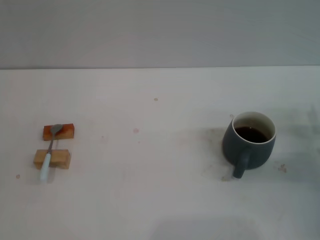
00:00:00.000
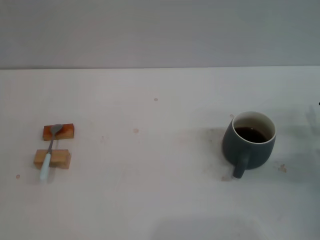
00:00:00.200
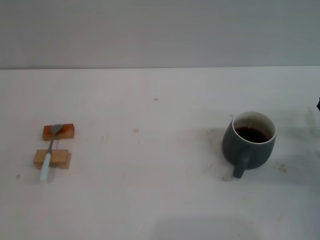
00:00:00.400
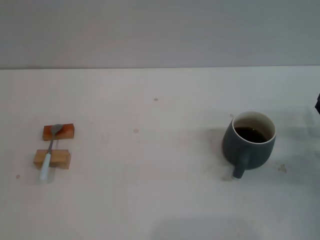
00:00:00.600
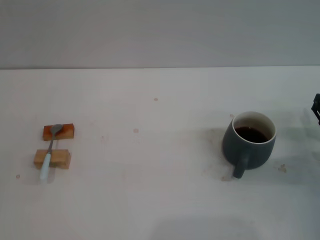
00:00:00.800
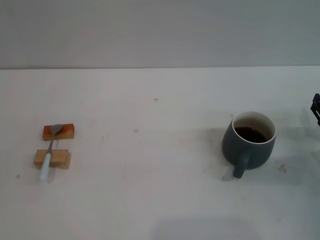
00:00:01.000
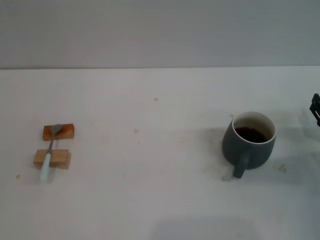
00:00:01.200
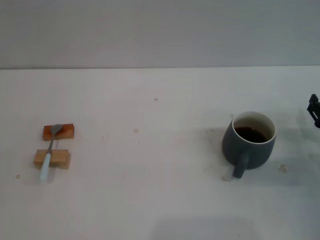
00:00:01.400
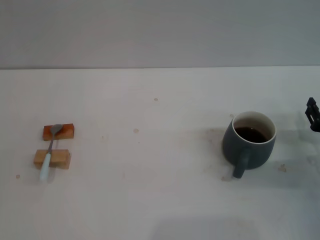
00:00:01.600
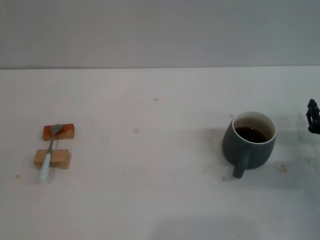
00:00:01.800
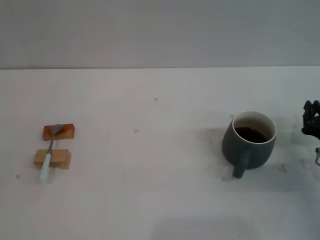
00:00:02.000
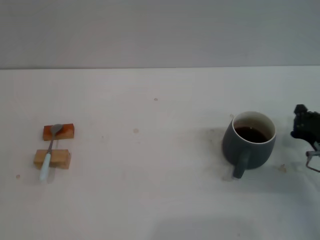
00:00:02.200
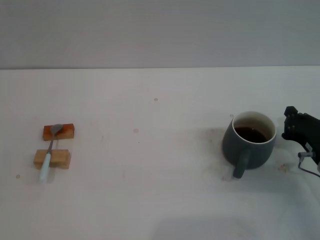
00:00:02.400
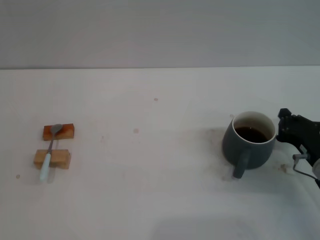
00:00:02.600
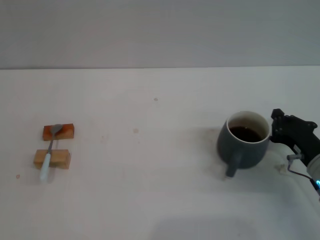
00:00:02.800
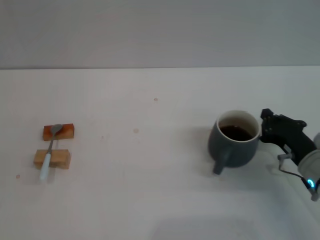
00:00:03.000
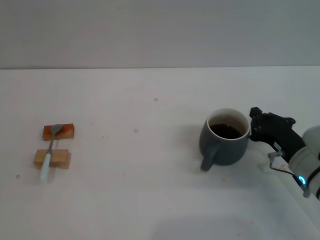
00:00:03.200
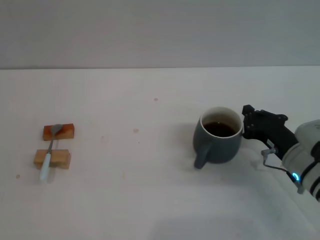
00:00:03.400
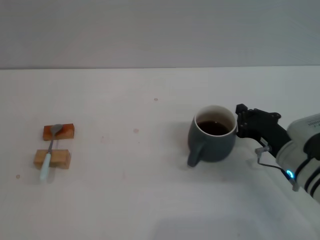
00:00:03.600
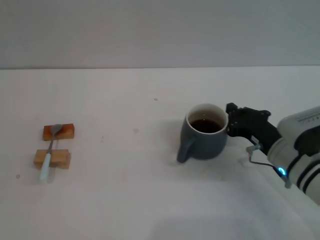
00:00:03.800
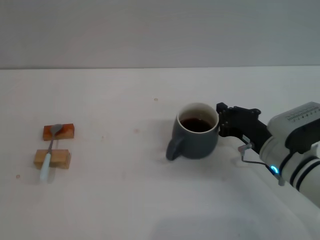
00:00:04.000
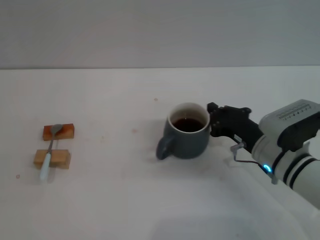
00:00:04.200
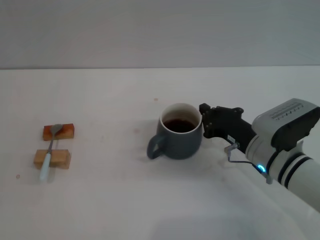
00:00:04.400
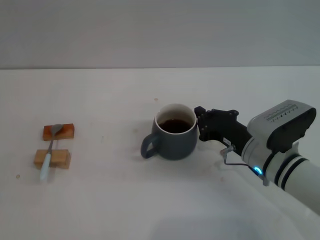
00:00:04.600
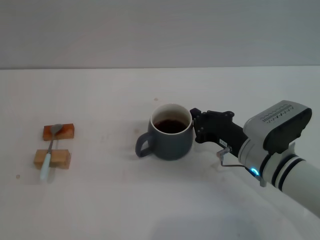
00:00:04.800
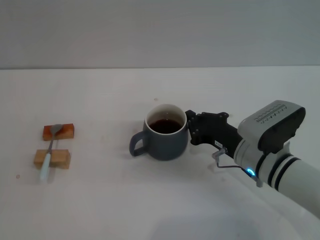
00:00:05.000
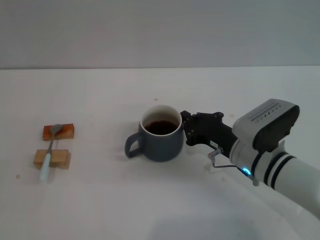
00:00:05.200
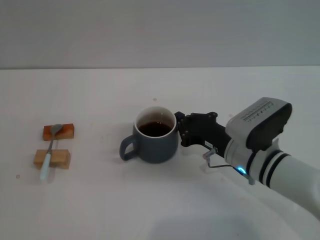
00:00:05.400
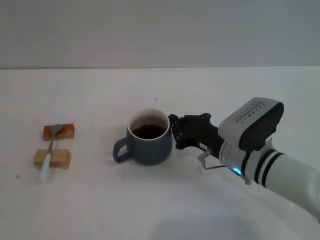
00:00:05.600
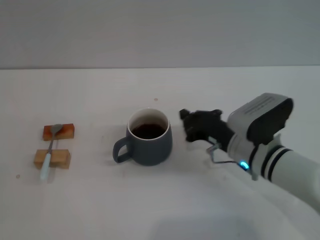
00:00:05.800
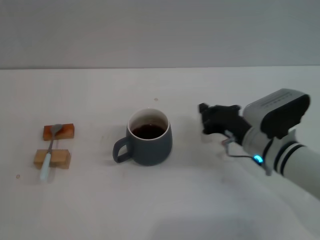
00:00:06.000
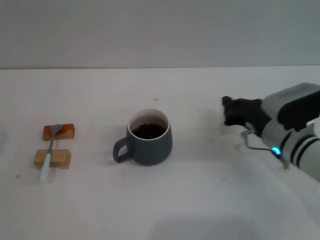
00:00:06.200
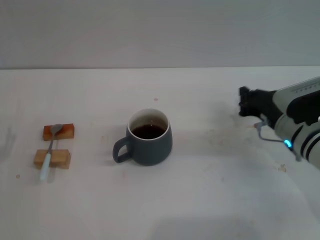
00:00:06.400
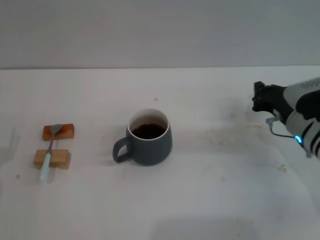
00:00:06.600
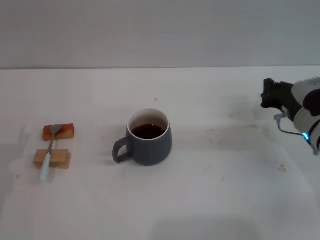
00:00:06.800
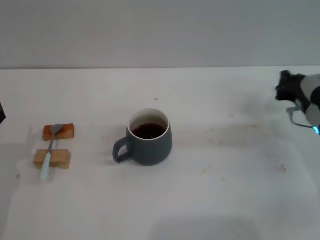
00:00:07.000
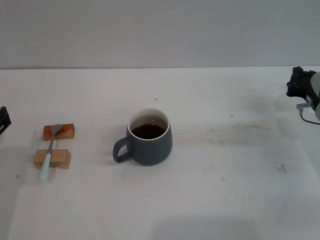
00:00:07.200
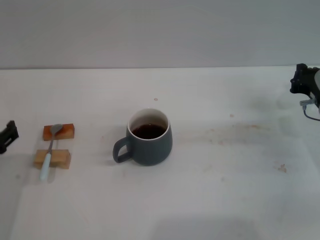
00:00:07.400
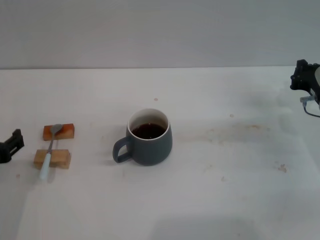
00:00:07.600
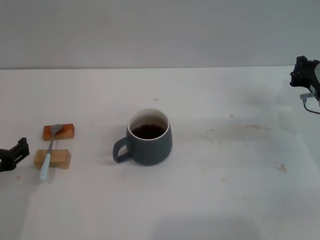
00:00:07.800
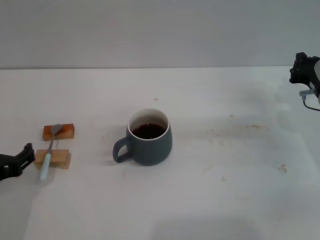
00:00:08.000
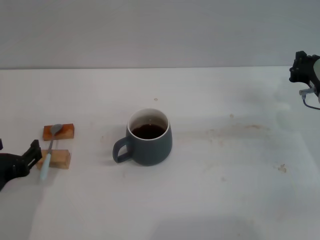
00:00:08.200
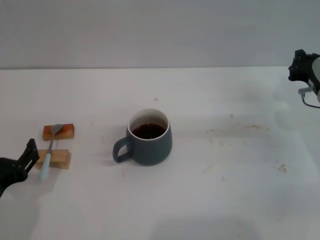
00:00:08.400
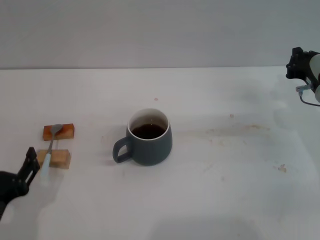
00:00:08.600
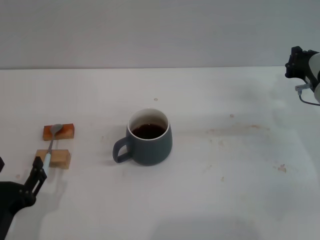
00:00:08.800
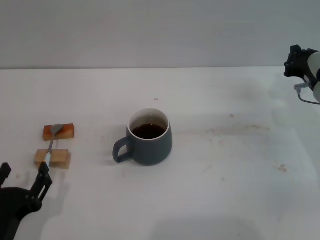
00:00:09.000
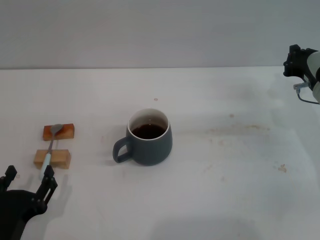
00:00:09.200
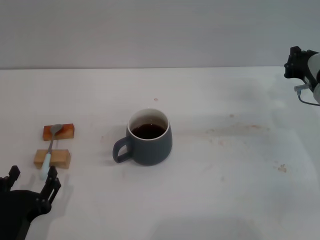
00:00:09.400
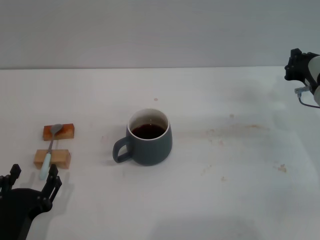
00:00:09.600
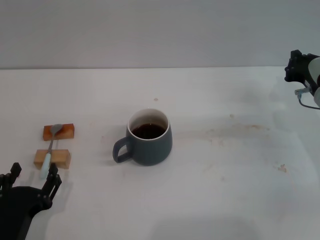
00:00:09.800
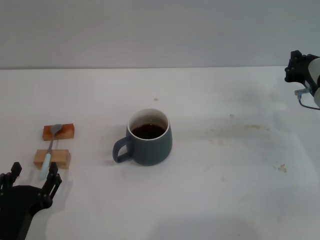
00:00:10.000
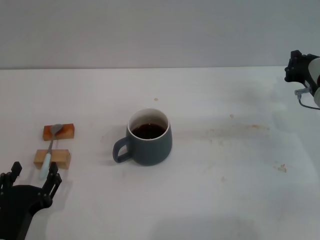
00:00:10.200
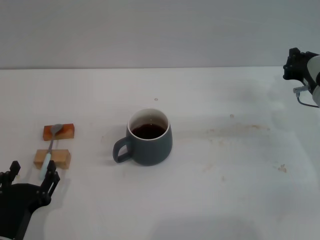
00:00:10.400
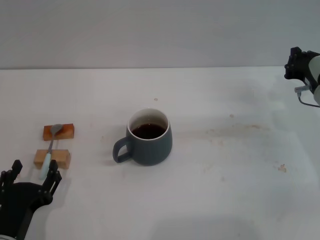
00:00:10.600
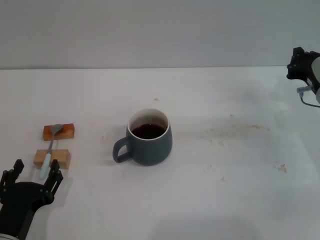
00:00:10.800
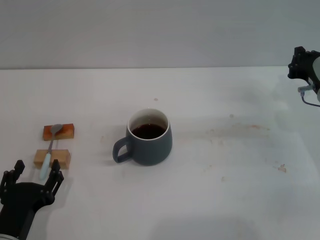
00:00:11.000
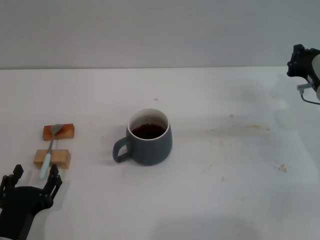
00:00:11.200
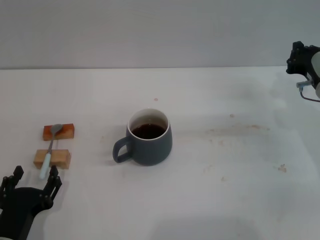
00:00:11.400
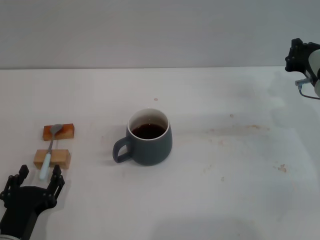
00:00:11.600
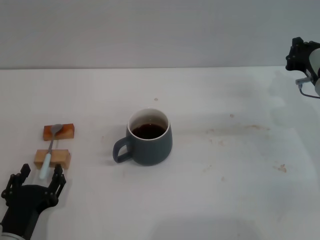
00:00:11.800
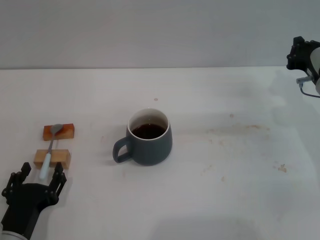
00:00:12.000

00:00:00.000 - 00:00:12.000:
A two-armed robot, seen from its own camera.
Task of the whole recording: Move the grey cup to the center, lift the blue spoon, stir it three times in the cup, and put the spoon into the cup.
Step, 00:00:00.000 - 00:00:06.200: Move the cup with coffee to the center of view with the right gripper.
00:00:01.600 - 00:00:03.000: The right gripper moves to the left, about 5 cm, and closes its fingers.
00:00:03.000 - 00:00:04.400: The right gripper travels to the left by some 10 cm.
00:00:04.400 - 00:00:06.000: The left gripper moves approximately 5 cm.
00:00:06.000 - 00:00:07.600: The right gripper moves to the right, roughly 10 cm. Meanwhile the left gripper shifts roughly 15 cm upward and to the right.
00:00:07.600 - 00:00:09.000: The left gripper goes about 10 cm downward and backward.
00:00:09.000 - 00:00:12.000: There are only small adjustments of the grippers.

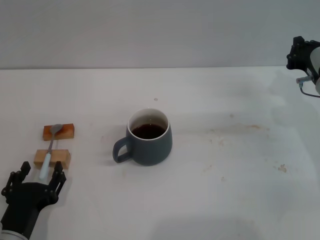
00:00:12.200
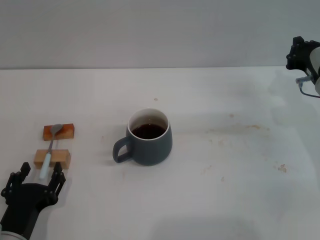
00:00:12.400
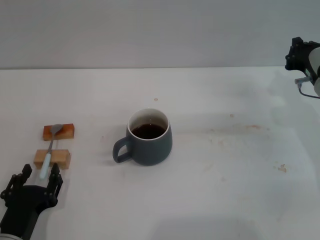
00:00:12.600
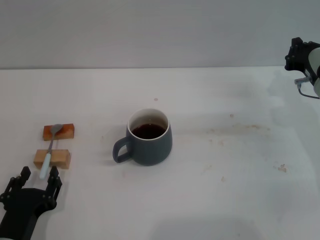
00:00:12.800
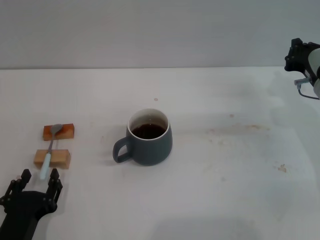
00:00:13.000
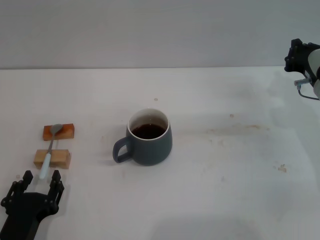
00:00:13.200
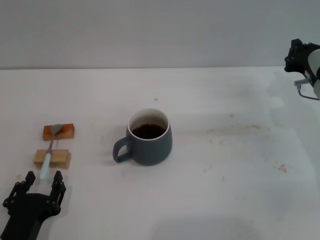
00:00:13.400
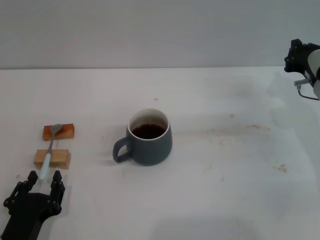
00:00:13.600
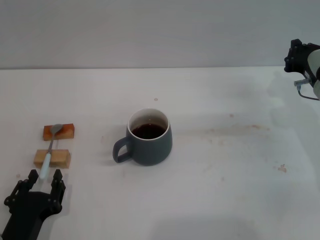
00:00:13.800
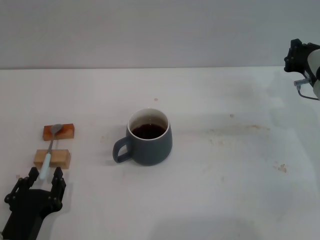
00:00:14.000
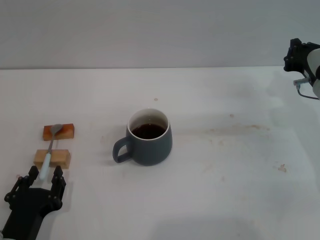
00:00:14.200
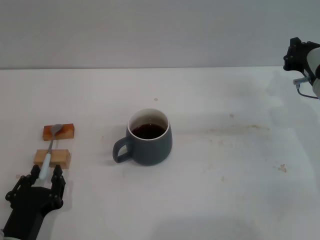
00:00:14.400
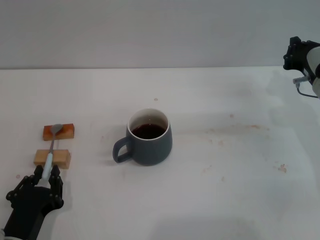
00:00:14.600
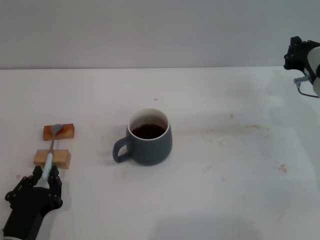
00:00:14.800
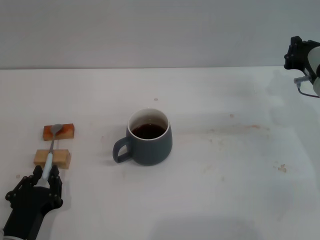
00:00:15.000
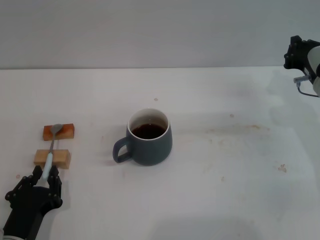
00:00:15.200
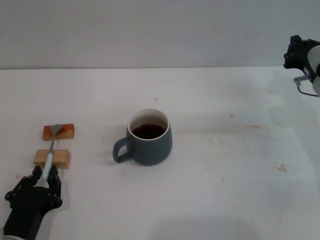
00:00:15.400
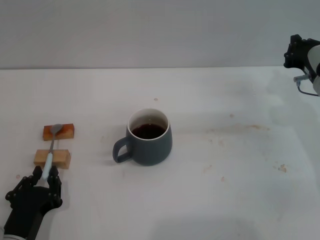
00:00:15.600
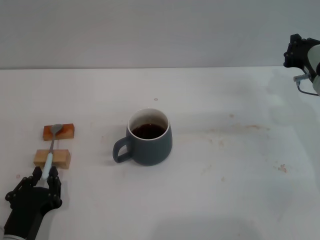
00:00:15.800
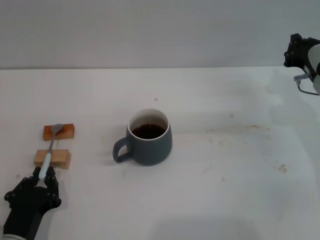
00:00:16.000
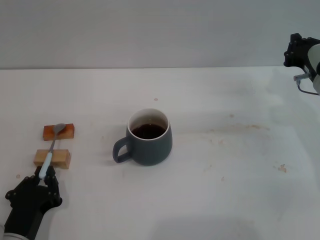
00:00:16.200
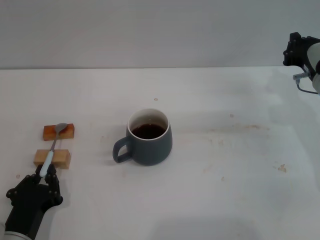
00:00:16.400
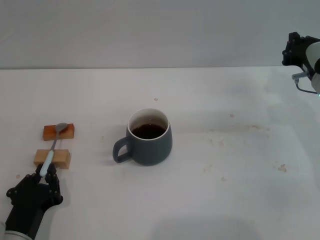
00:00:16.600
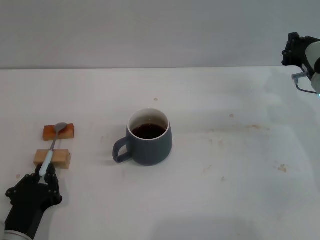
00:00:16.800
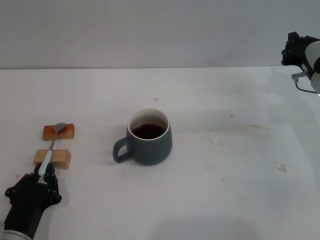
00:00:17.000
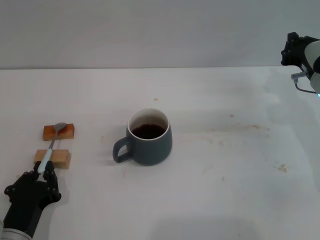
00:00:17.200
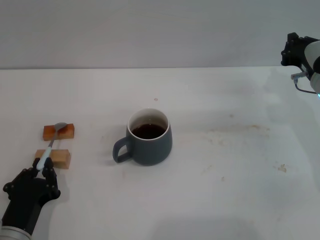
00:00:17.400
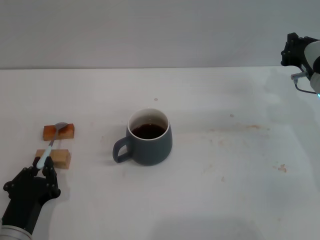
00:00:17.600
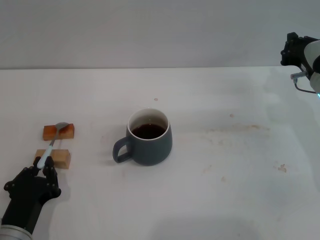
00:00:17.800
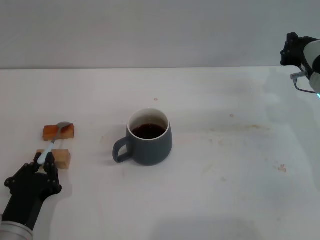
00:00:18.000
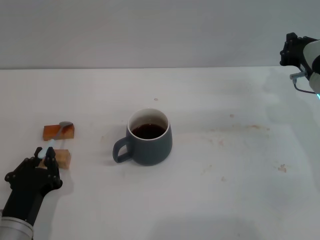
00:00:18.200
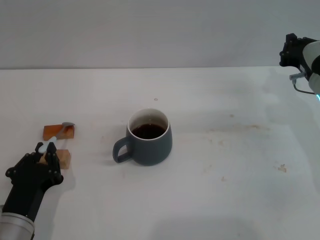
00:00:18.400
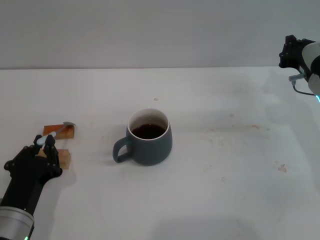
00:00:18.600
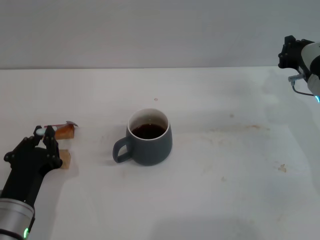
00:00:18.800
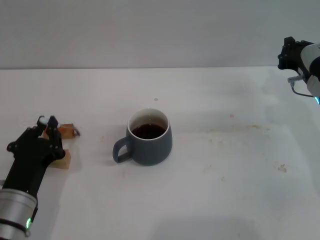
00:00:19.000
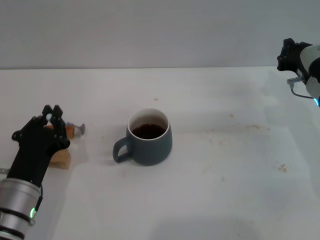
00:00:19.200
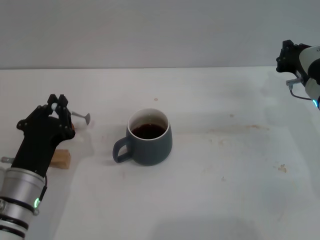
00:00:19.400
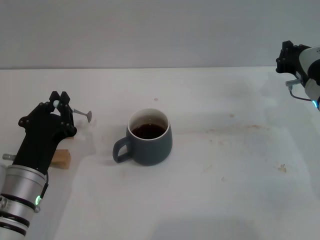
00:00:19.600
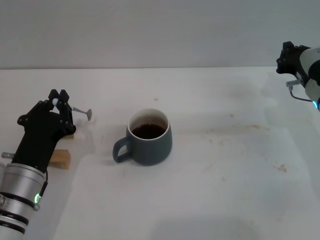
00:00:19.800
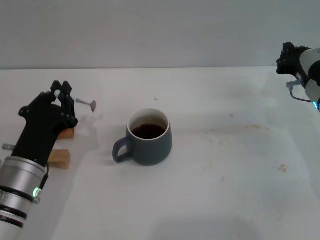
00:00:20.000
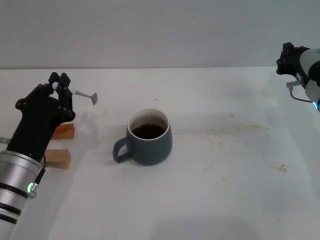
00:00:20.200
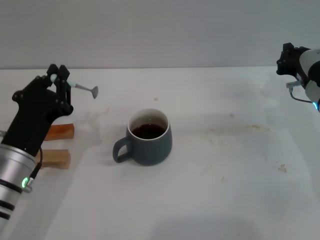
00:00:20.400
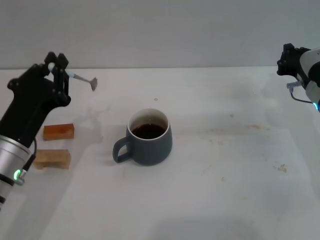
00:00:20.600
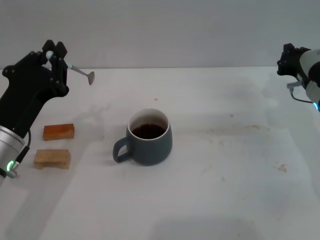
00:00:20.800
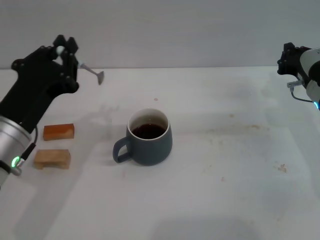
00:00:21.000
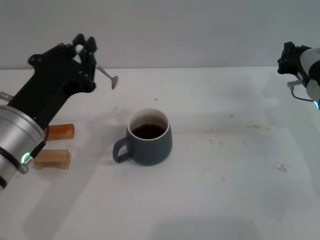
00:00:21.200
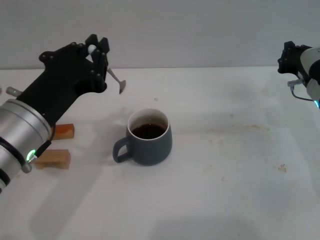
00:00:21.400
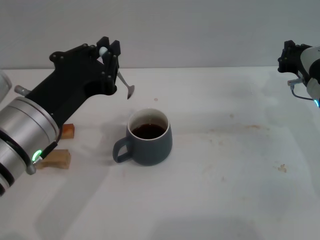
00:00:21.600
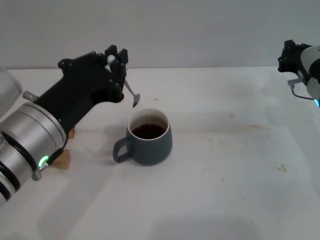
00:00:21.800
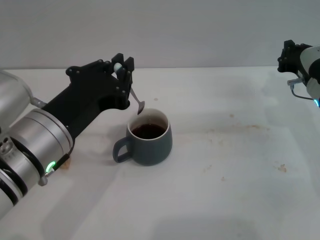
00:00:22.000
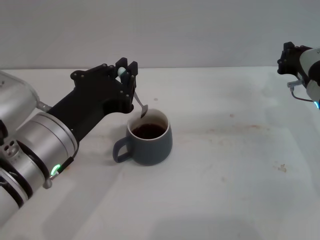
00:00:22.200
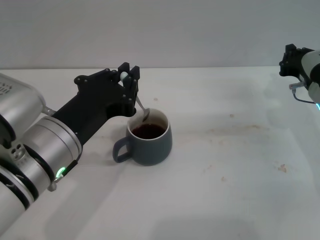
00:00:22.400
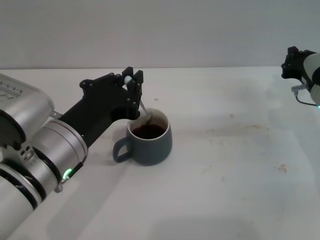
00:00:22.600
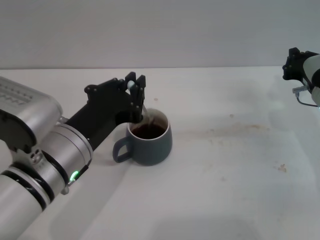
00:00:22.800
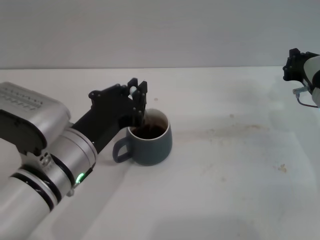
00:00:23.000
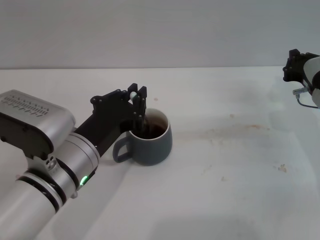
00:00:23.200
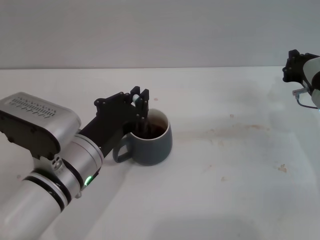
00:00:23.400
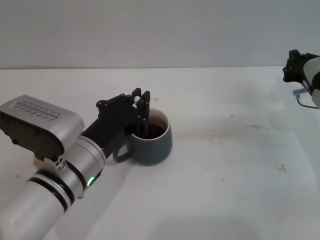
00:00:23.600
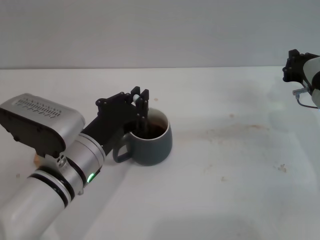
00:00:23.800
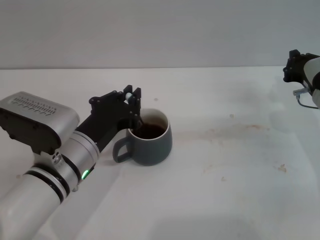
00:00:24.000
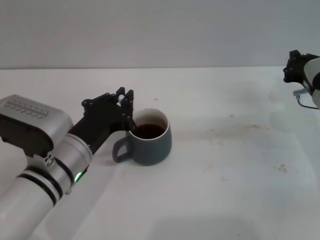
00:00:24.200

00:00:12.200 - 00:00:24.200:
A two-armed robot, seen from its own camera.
Task of the whole recording: Move the grey cup to the center, lift the blue spoon, stir it three times in the cup, and put the spoon into the cup.
Step, 00:00:12.200 - 00:00:20.200: Pick up the spoon with the left gripper.
00:00:12.200 - 00:00:13.800: The grippers stay close to where they were, moving slightly.
00:00:13.800 - 00:00:15.200: The left gripper closes.
00:00:15.200 - 00:00:16.600: The two grippers keep their place.
00:00:16.600 - 00:00:18.200: There are only small adjustments of the grippers.
00:00:18.200 - 00:00:19.800: The left gripper moves forward, roughly 5 cm.
00:00:19.800 - 00:00:21.200: The left gripper heads upward, covering approximately 10 cm.
00:00:21.200 - 00:00:22.600: The grippers move only a little.
00:00:22.600 - 00:00:24.200: The left gripper is displaced downward by about 5 cm.
